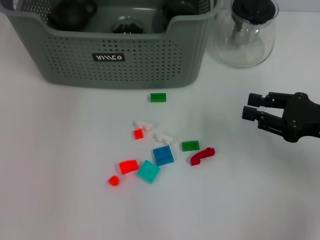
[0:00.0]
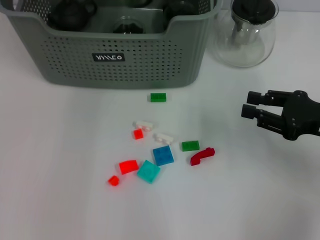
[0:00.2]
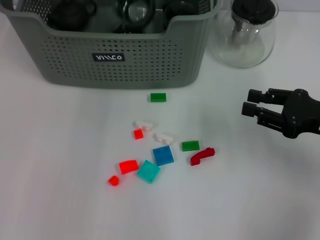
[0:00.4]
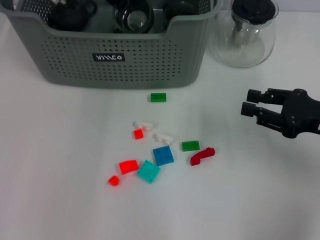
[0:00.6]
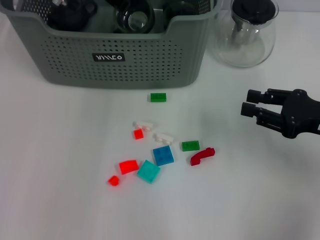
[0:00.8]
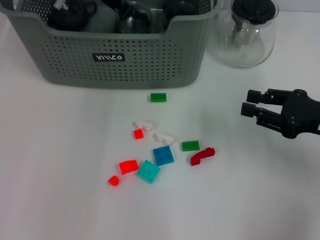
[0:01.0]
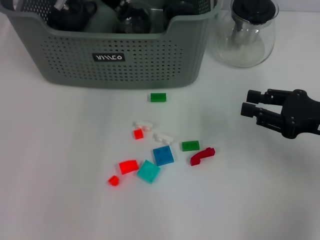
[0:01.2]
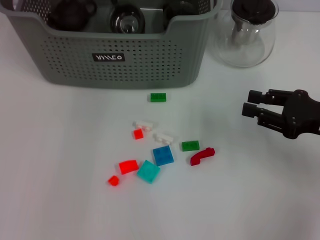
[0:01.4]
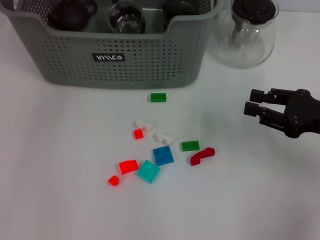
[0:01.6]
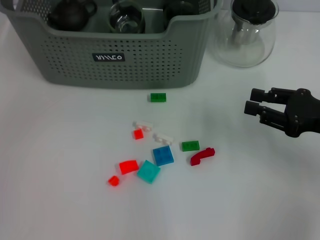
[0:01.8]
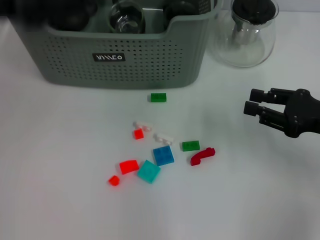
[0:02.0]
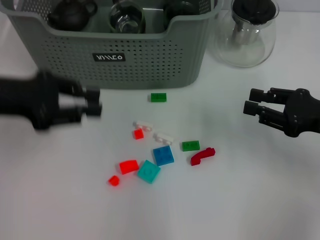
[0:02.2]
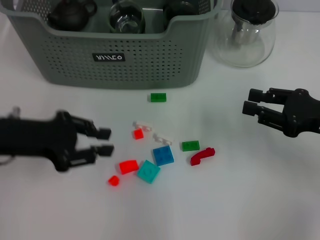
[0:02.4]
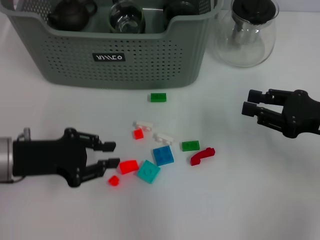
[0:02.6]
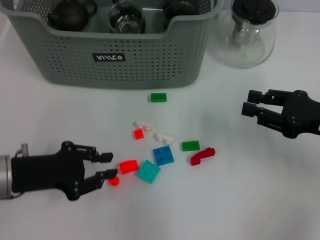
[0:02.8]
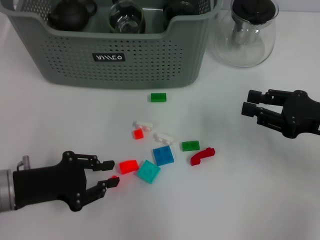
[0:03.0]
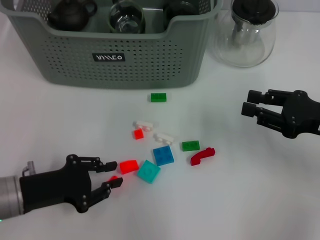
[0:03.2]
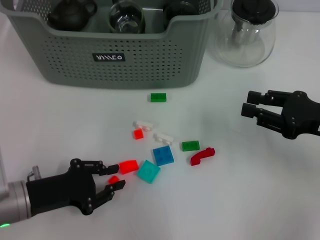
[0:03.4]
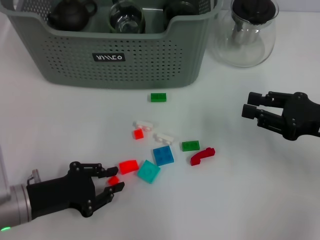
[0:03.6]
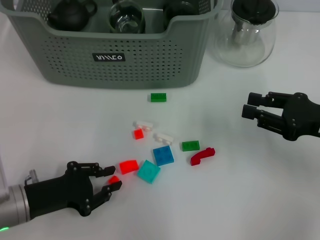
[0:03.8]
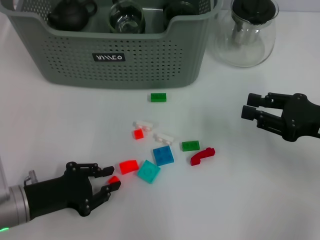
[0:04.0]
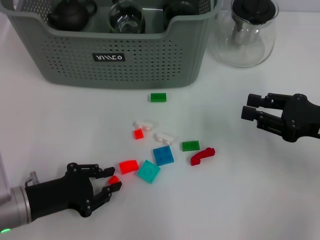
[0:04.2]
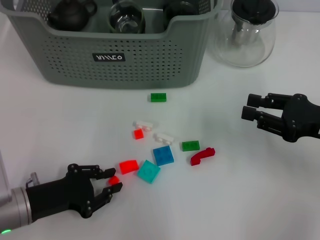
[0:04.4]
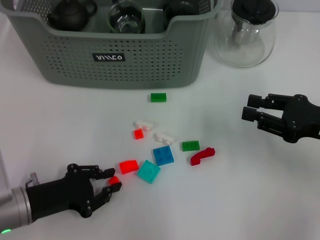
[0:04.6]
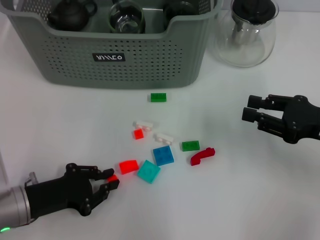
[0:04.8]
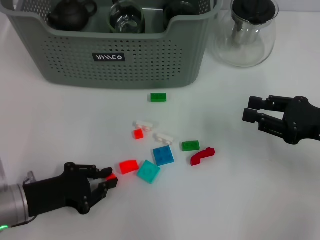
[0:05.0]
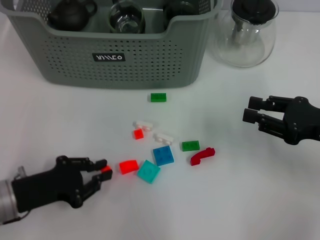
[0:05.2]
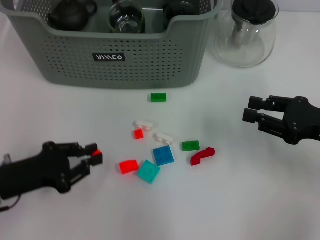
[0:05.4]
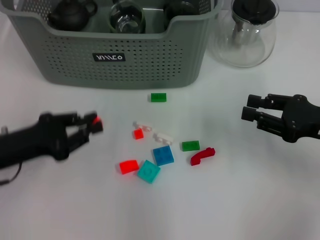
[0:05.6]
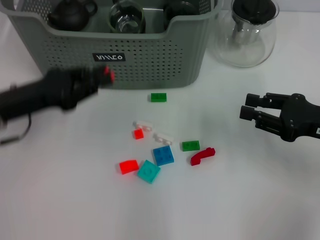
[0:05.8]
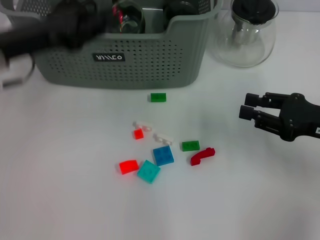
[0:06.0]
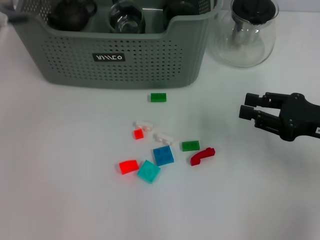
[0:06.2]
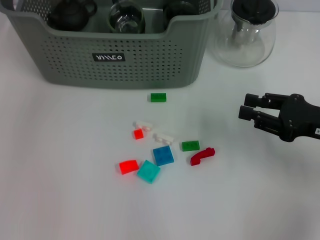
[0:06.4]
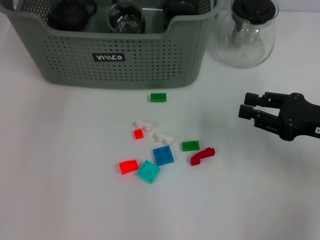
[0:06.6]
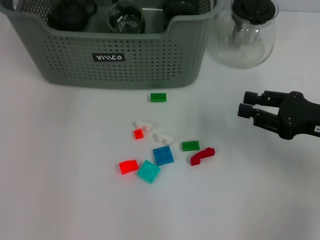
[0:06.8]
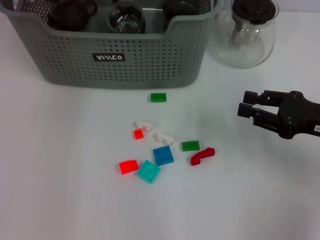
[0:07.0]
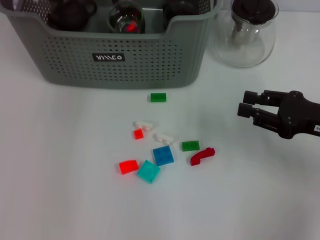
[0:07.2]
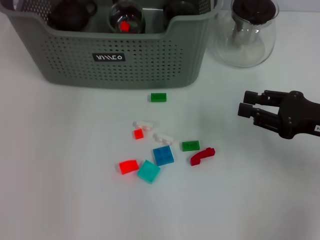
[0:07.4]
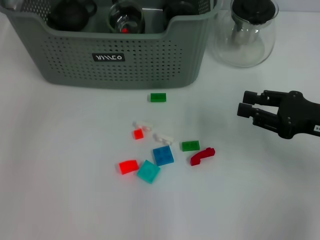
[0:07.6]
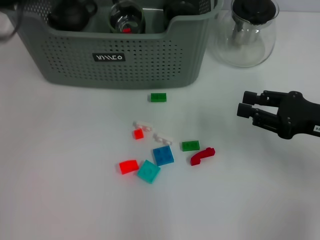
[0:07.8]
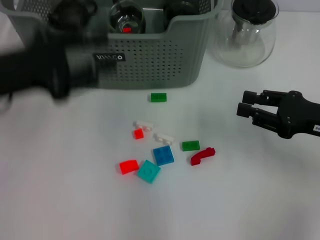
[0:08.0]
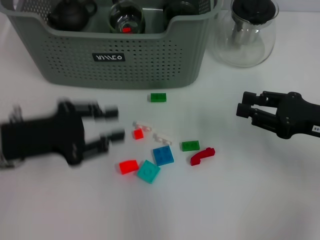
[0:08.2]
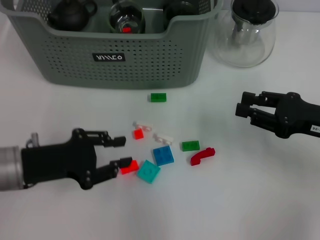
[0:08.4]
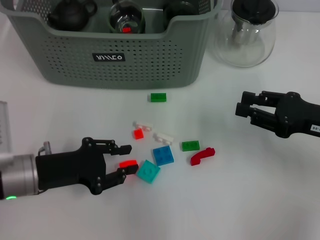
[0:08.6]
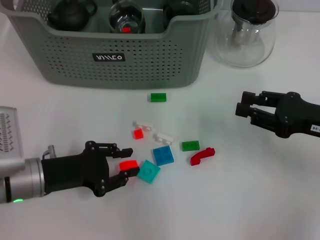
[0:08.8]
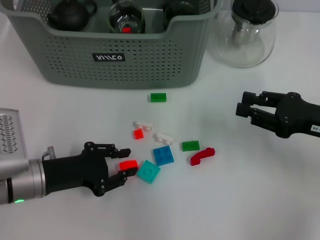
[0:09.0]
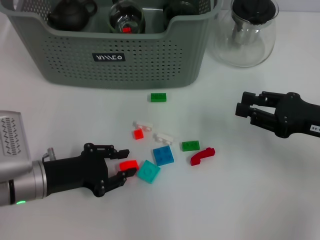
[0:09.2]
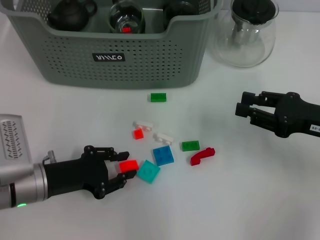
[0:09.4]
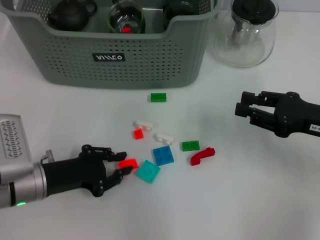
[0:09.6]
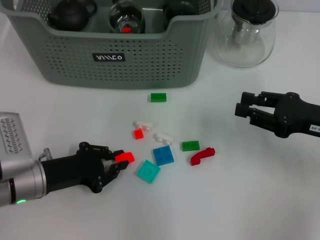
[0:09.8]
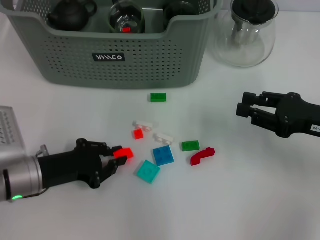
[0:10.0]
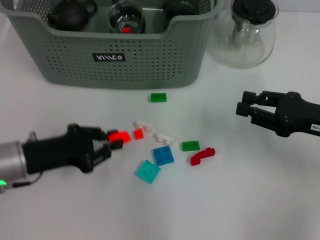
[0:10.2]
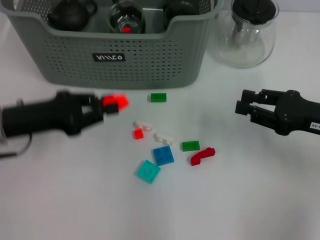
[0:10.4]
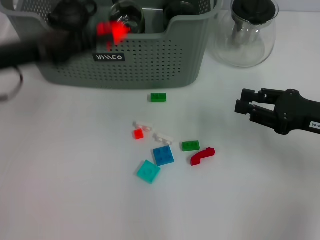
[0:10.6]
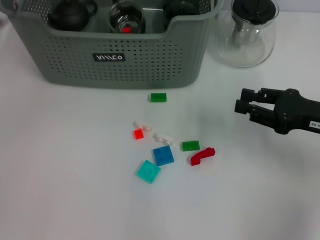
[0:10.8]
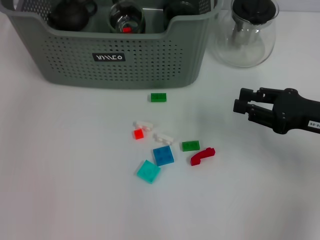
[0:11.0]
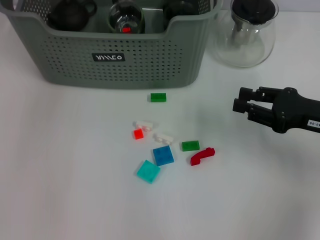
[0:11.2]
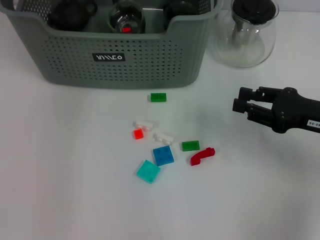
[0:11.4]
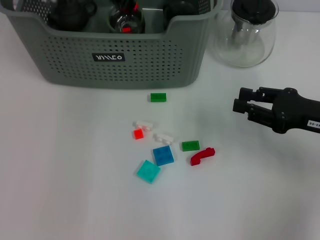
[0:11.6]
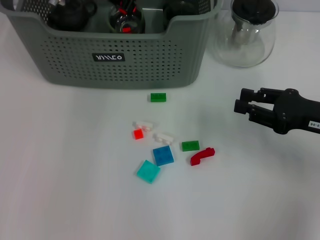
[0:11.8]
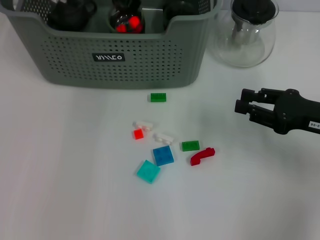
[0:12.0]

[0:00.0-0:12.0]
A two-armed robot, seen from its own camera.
Task of the whole recording: pick up the teacup on the table and place it into the storage bin, pick up the block on the table and place it into the storage bin.
Step, 0:00.0 to 0:02.0: Place the cup in the storage box with left gripper.
Step, 0:02.2 to 0:04.8: Grasp the orange block with left gripper.
Step, 0:05.0 to 0:07.6: Place the orange block in the storage box with left gripper.
Step, 0:07.8 to 0:09.6: Grasp the orange block with left gripper.
0:00.0 to 0:01.6: The left gripper reaches approximately 10 cm downward, then returns.
0:01.6 to 0:03.0: The left gripper travels backward and downward by approximately 30 cm.
0:03.0 to 0:04.4: The grippers make only small movements.
0:04.4 to 0:06.0: The left gripper is displaced upward and forward by roughly 20 cm.
0:06.0 to 0:07.6: The left gripper goes roughly 15 cm upward and forward.
0:07.6 to 0:09.0: The left gripper heads downward and backward, covering roughly 25 cm.
0:09.0 to 0:10.4: The left gripper heads upward, covering some 10 cm.
0:10.4 to 0:12.0: The left gripper heads forward, to the right and upward, covering some 25 cm.

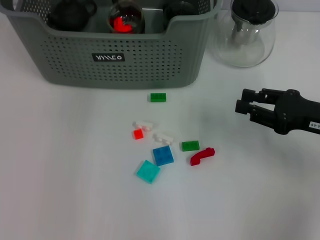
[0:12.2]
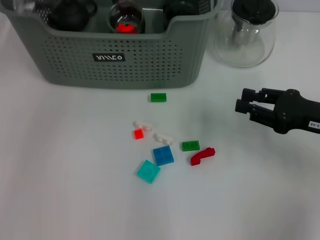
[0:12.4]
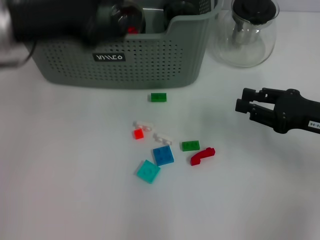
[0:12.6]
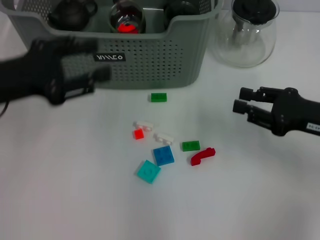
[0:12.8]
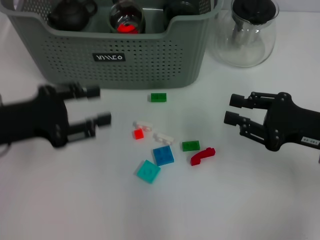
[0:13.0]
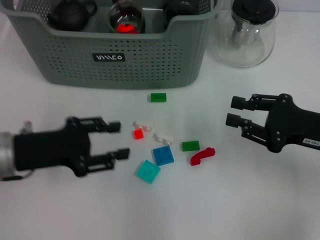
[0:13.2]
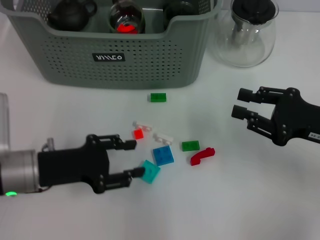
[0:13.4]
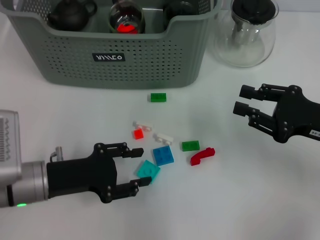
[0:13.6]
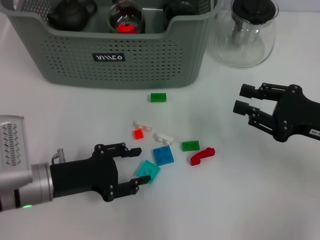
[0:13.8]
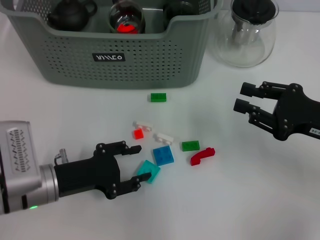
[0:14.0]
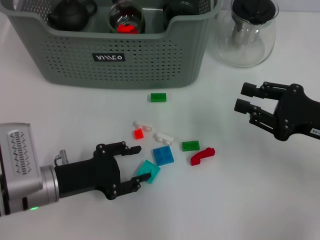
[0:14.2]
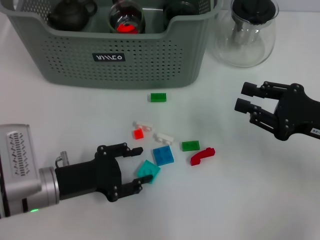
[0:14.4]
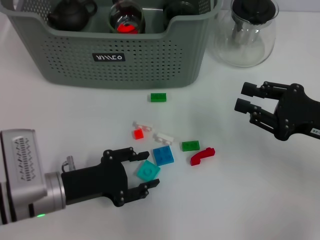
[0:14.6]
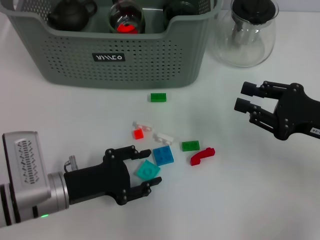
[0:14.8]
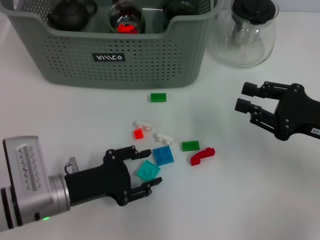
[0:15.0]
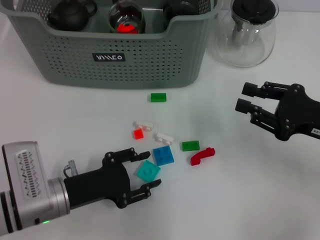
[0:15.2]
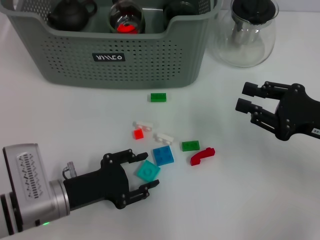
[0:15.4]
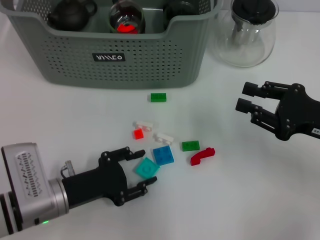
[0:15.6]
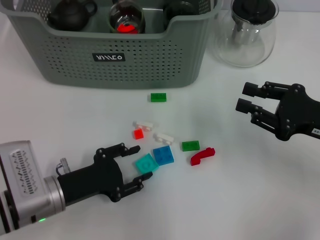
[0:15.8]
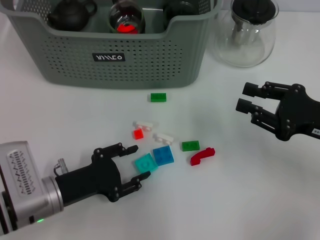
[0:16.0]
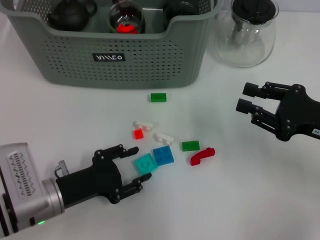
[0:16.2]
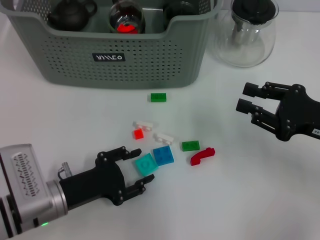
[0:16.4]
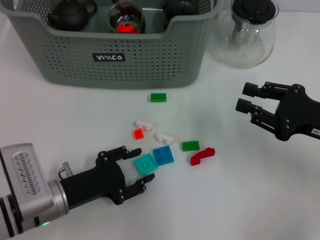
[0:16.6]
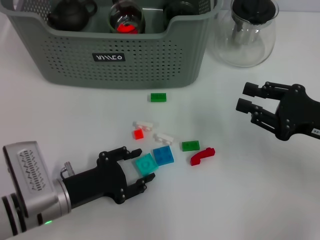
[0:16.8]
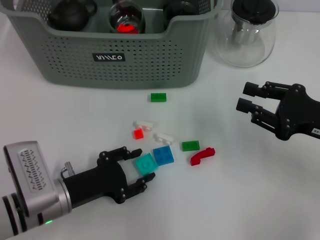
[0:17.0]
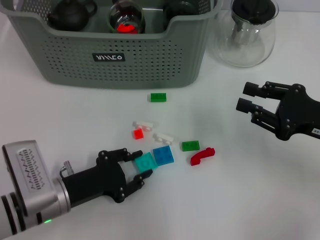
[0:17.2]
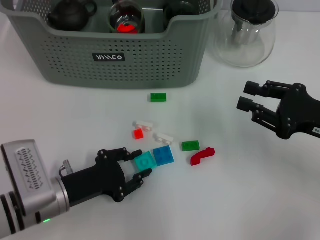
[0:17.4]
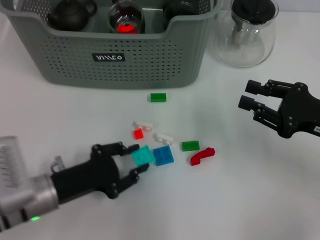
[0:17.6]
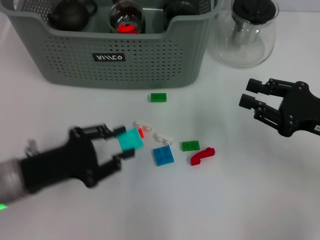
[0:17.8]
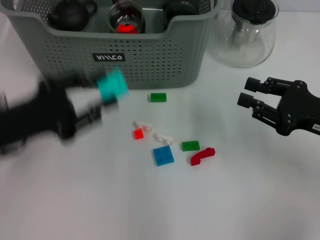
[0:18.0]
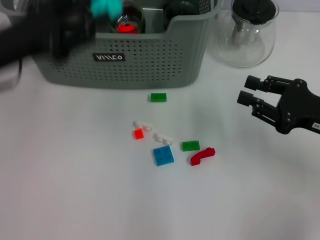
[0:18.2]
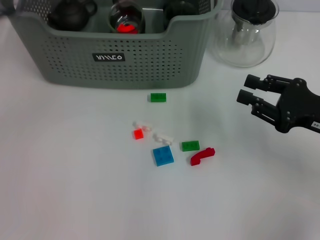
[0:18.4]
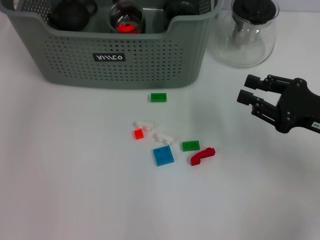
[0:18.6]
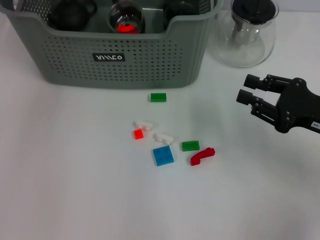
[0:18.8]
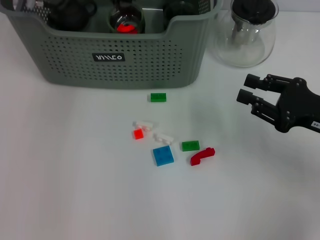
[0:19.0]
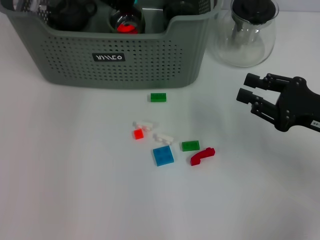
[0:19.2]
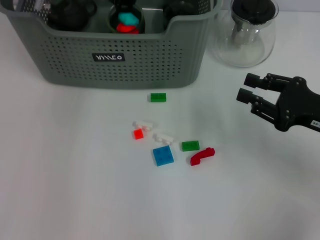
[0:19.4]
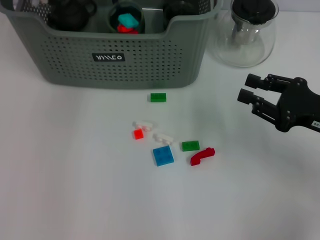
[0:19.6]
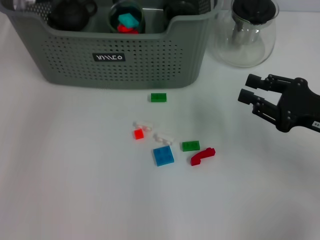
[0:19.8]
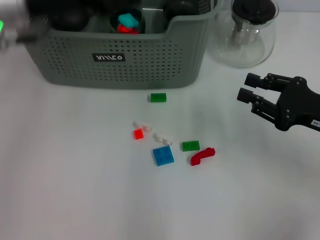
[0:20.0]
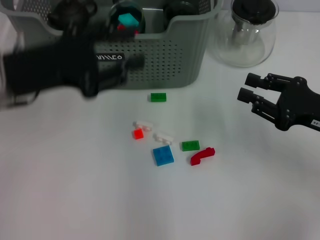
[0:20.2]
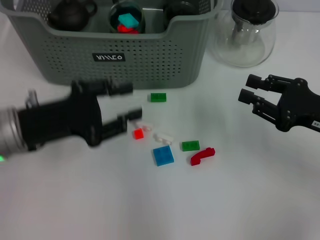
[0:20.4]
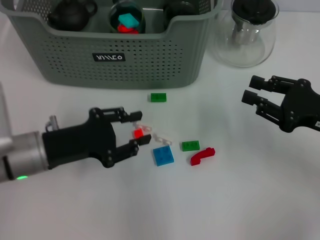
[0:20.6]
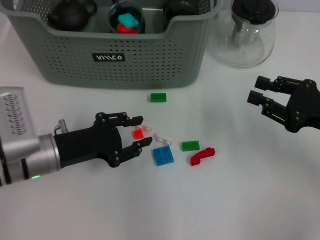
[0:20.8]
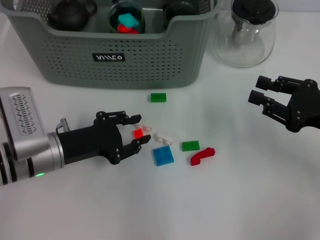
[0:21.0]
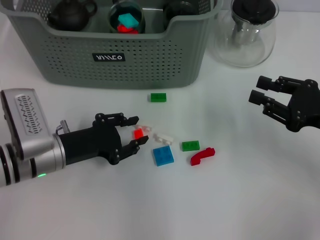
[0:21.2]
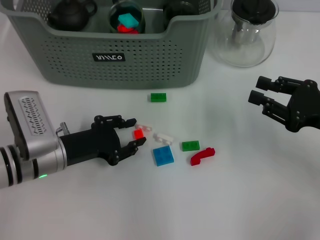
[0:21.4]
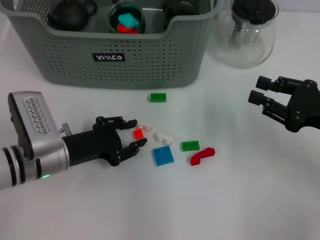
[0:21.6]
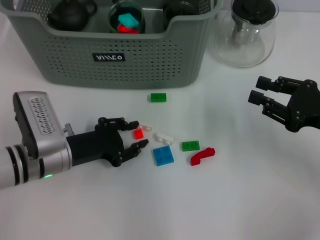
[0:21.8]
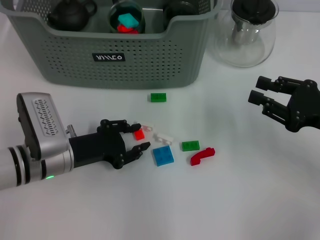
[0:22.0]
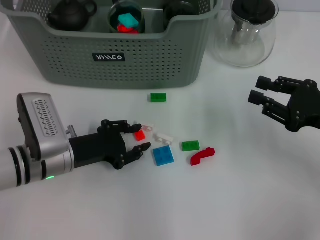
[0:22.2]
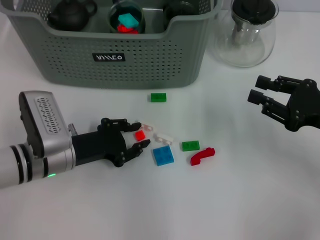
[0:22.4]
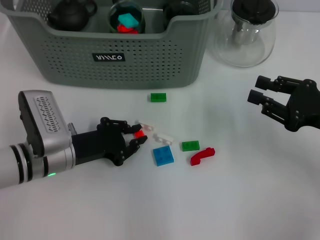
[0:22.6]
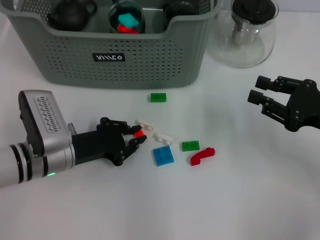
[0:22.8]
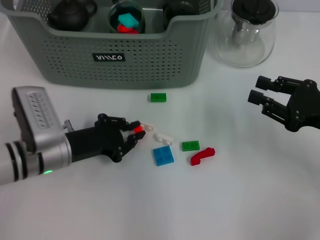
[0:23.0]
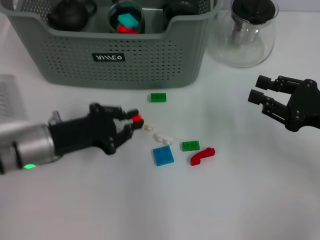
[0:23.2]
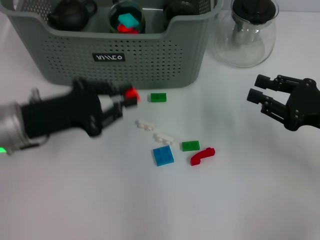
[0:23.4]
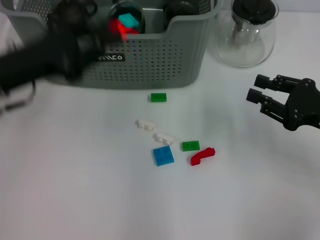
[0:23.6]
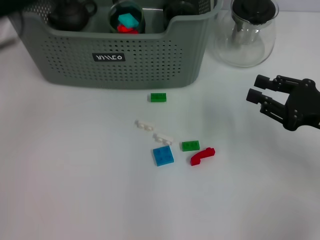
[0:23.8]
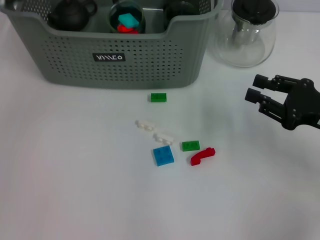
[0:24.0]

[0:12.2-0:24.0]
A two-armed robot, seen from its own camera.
Task of the whole recording: pick up the teacup on the table and place it into the storage bin, pick up the block on the table and place it into the storage bin.
Step, 0:13.0 to 0:17.4: Grasp the light blue block with left gripper.
Step, 0:17.6 to 0:20.0: Place the light blue block in the storage box with left gripper.
Step, 0:20.2 to 0:22.6: Grasp the orange block with left gripper.
0:12.2 to 0:13.6: The left gripper is displaced backward and downward by about 30 cm, and opens.
0:13.6 to 0:16.6: The grippers make only small movements.
0:16.6 to 0:18.2: The left gripper goes about 20 cm upward and forward.
0:18.2 to 0:19.6: The left gripper moves forward and to the right, roughly 20 cm.
0:19.6 to 0:21.0: The left gripper shifts about 25 cm backward and downward.
0:21.0 to 0:22.6: The grippers stay close to where they were, moving slightly.
0:22.6 to 0:24.0: The left gripper moves upward and forward, about 25 cm.
